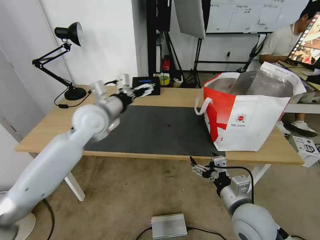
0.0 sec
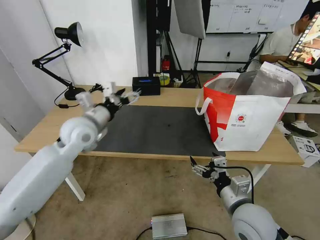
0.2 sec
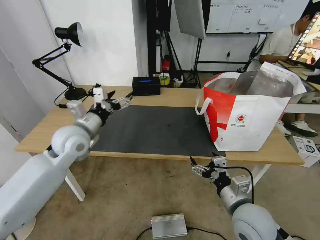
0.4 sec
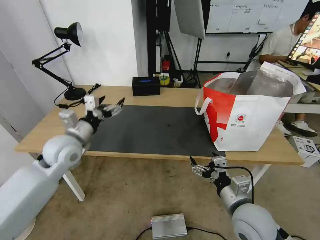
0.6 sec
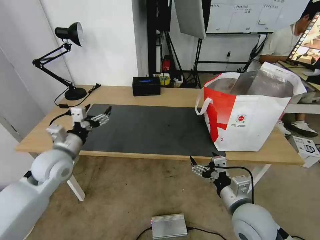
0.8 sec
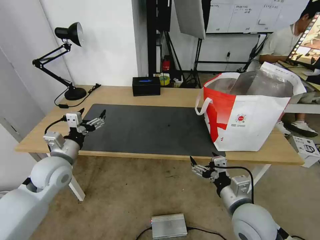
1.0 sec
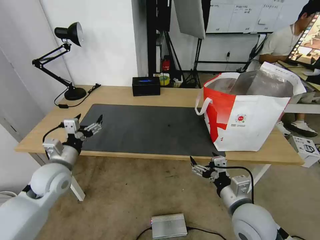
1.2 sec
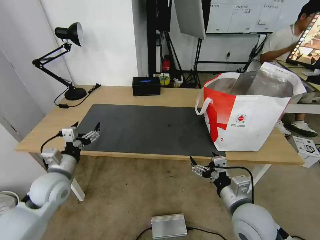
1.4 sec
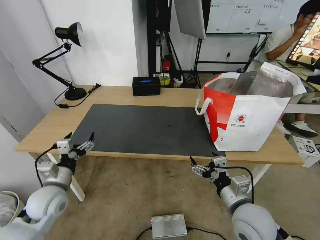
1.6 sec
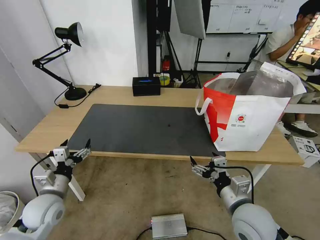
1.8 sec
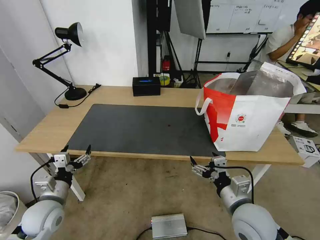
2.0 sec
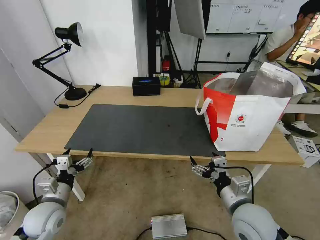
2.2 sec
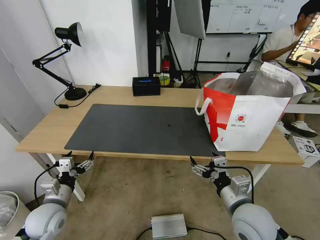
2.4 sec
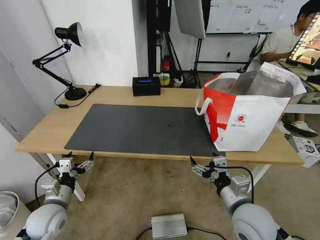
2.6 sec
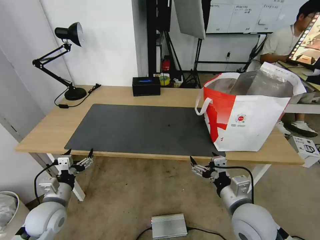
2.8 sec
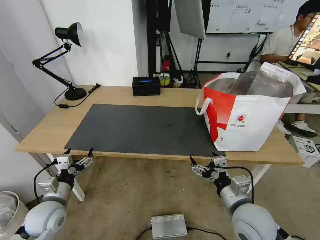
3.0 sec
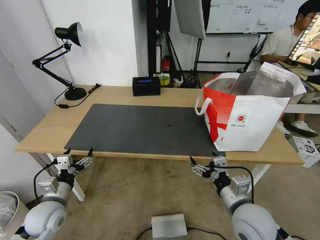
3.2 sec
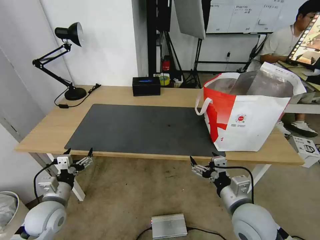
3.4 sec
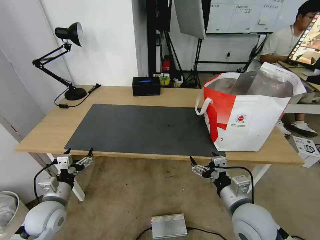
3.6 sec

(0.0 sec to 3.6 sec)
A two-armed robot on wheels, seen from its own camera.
Task of the whole recording: Pick up the trash from the table and place it into the takeout bag.
0.0 sec - 1.8 sec: The left gripper goes about 30 cm downward, backward and to the left.
1.8 sec - 3.6 sec: The grippers make only small movements.

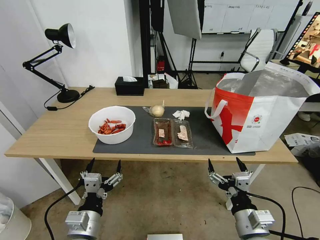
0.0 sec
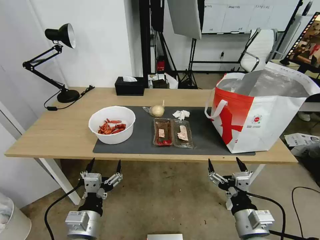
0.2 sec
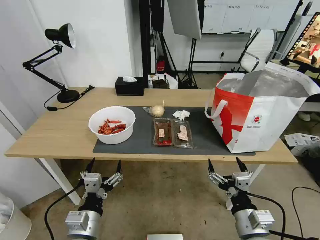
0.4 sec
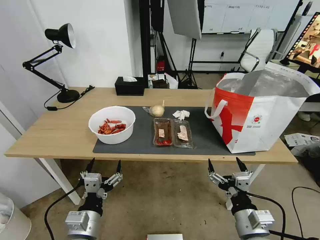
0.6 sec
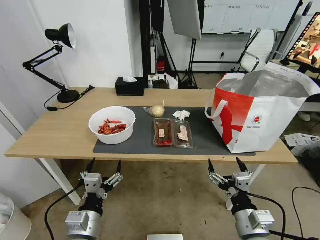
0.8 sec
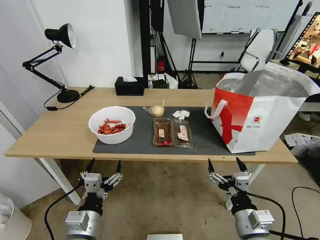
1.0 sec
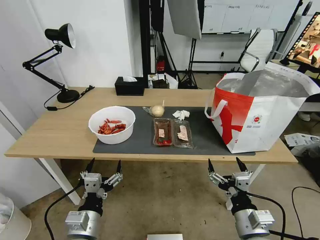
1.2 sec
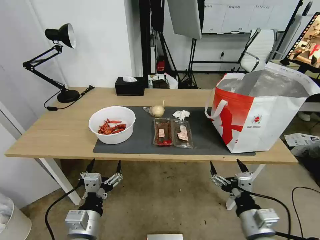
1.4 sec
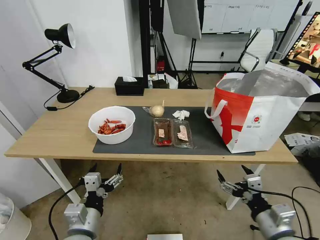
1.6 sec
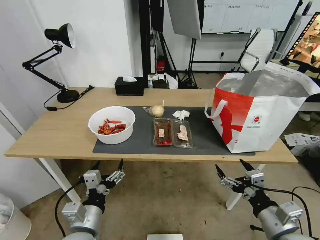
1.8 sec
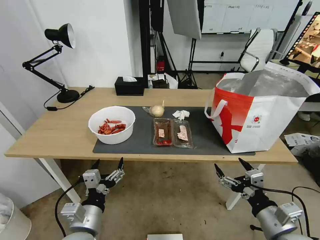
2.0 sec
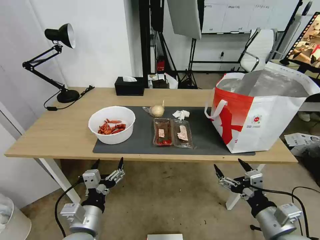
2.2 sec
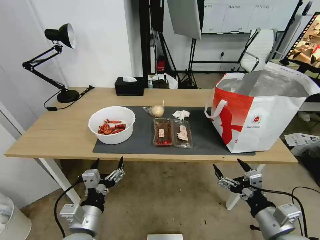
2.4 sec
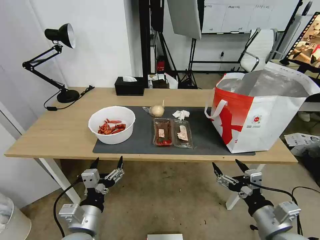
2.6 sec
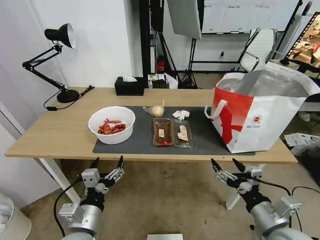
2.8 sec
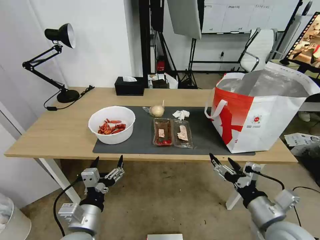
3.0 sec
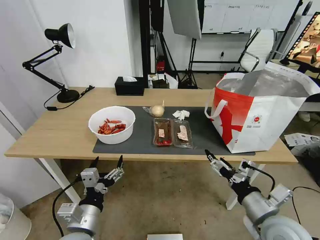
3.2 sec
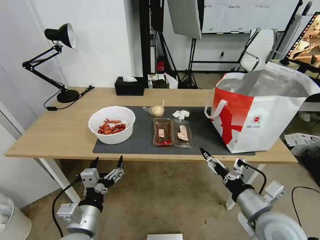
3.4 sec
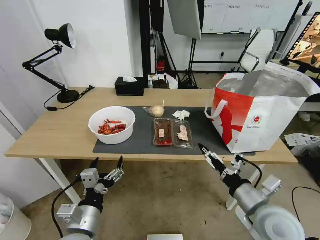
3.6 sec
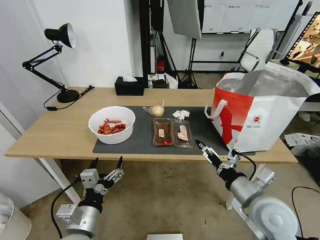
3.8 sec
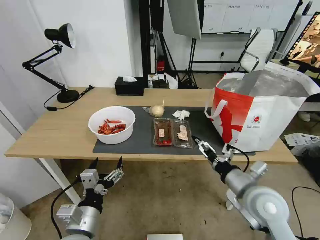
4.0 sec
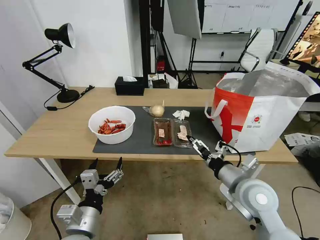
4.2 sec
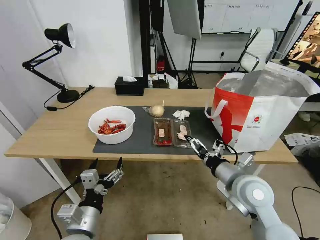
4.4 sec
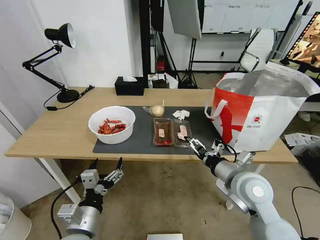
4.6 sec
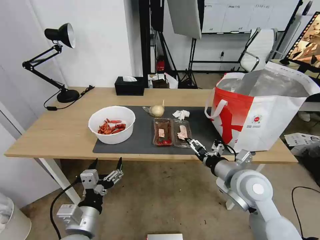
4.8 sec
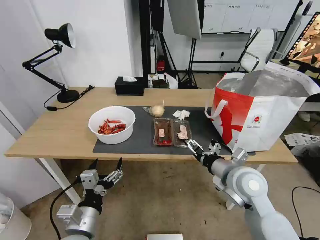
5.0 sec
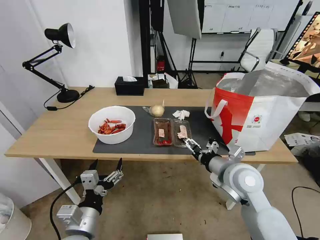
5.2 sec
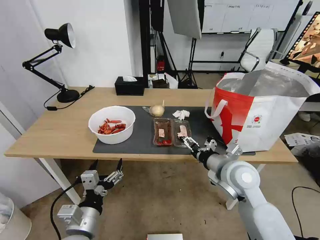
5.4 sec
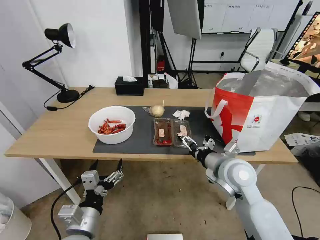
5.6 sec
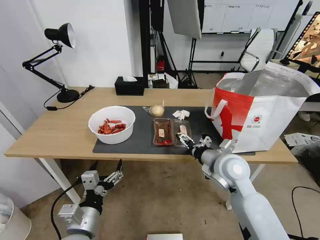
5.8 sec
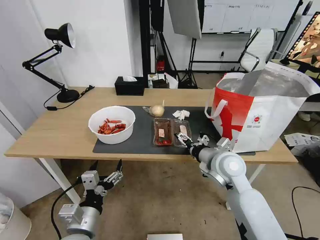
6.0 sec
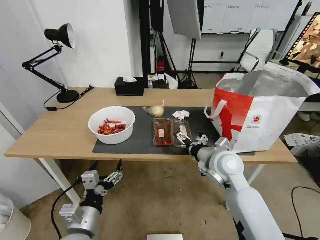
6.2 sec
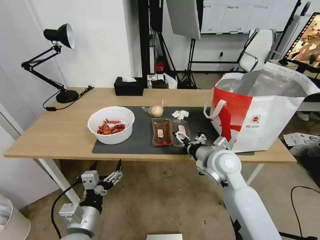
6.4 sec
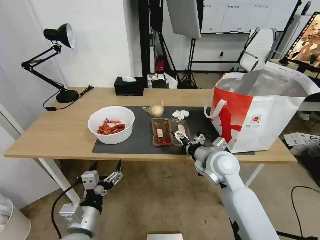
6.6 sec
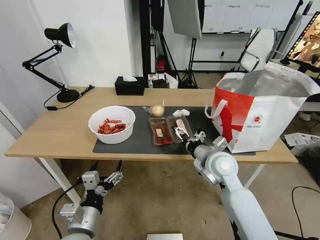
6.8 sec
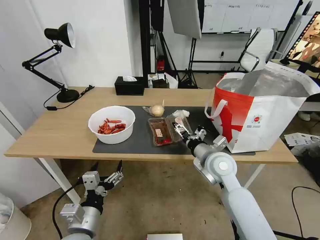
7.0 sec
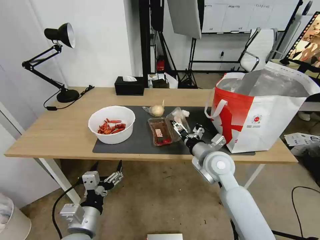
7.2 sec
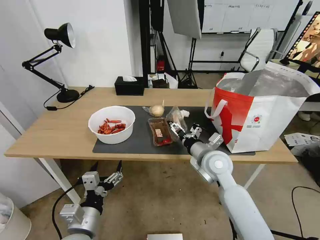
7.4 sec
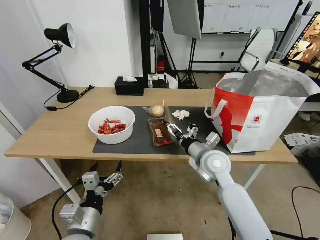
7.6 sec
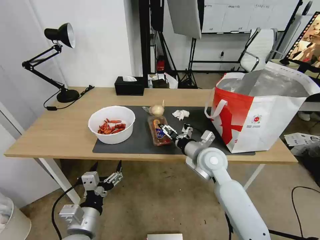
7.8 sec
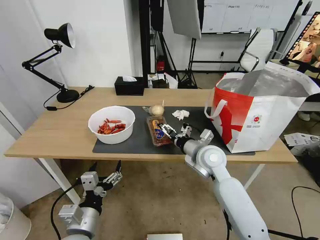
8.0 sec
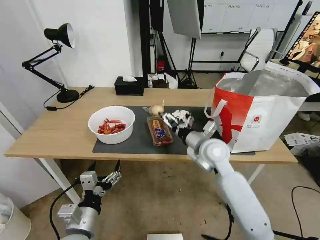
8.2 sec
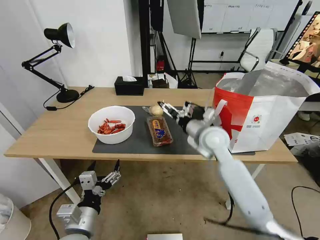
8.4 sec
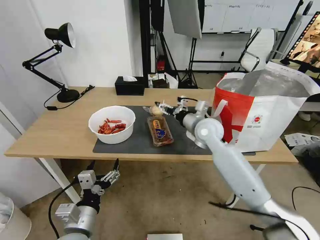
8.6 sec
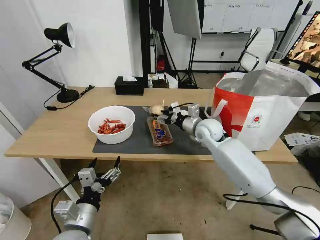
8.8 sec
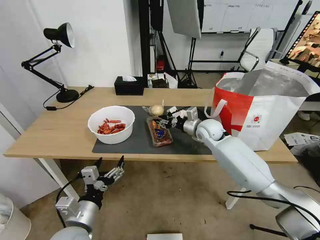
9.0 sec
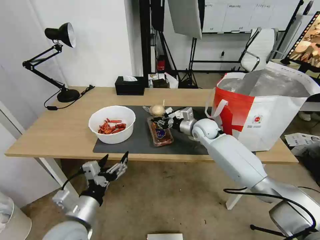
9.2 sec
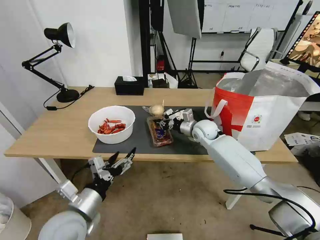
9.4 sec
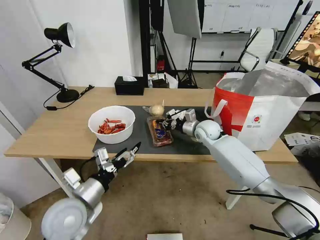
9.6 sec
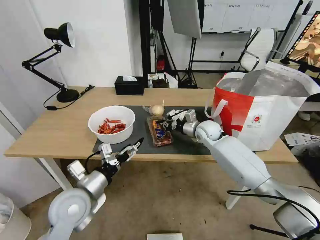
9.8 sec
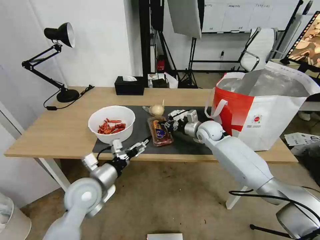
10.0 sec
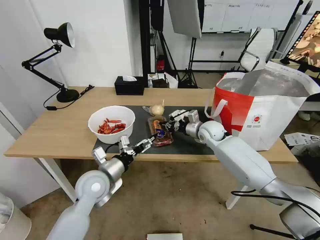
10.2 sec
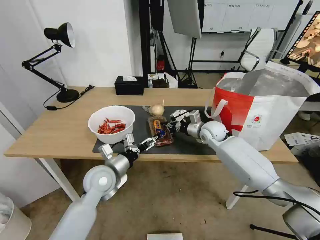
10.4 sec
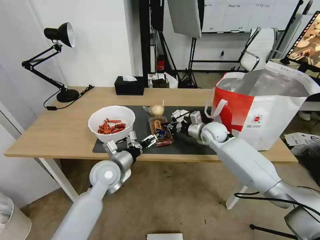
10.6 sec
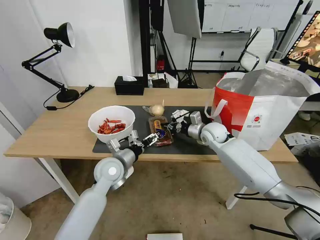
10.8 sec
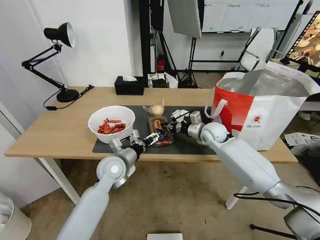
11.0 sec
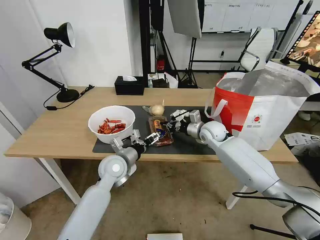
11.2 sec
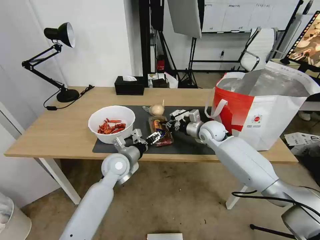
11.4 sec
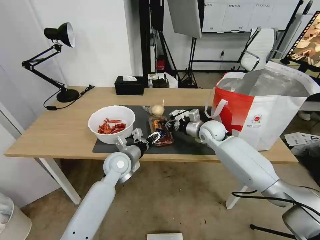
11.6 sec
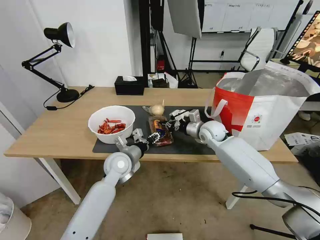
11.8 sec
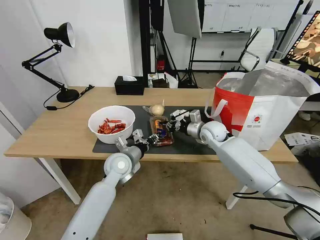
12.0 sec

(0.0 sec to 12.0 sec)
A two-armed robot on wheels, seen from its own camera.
Task of the whole recording: Pick up the trash from the table and place it into the takeout bag.
3.0 sec - 4.4 sec: The right gripper travels forward and to the left by roughly 15 cm.
4.4 sec - 6.0 sec: The right gripper moves forward, some 10 cm.
6.0 sec - 7.6 sec: The grippers stay close to where they were, moving slightly.
7.6 sec - 9.0 sec: The right gripper travels forward by some 15 cm, and closes.
9.0 sec - 10.4 sec: The left gripper goes some 15 cm forward.
10.4 sec - 12.0 sec: The left gripper is displaced forward by some 5 cm, and closes its fingers.

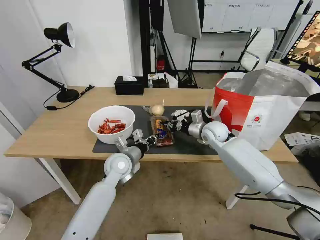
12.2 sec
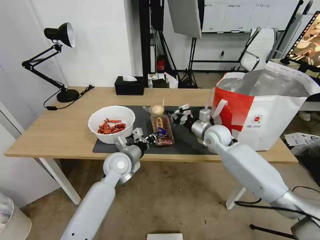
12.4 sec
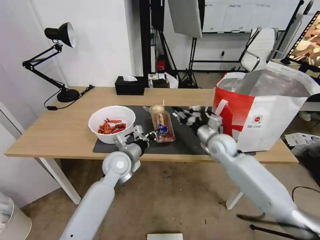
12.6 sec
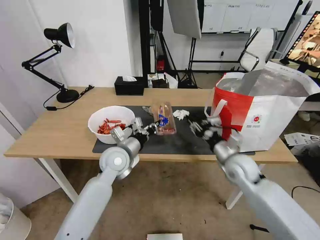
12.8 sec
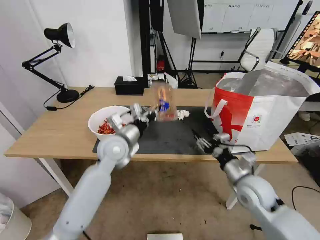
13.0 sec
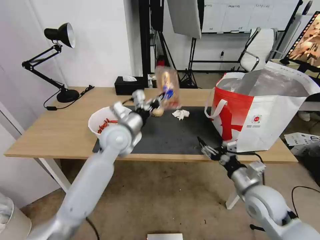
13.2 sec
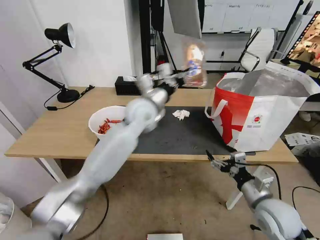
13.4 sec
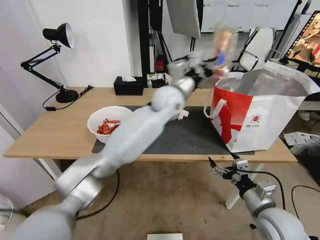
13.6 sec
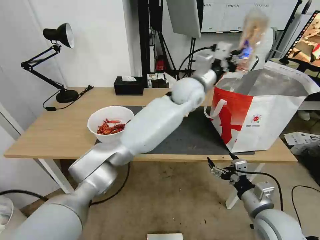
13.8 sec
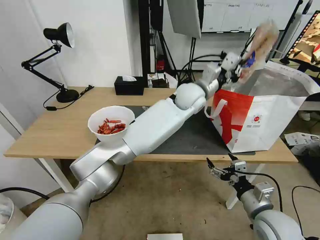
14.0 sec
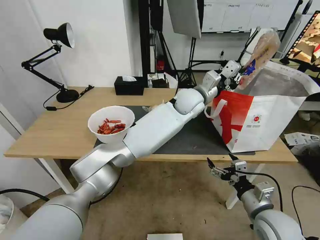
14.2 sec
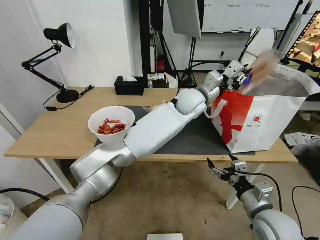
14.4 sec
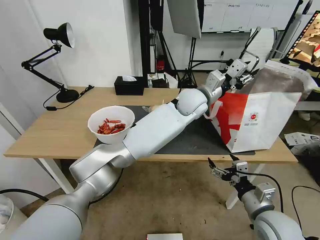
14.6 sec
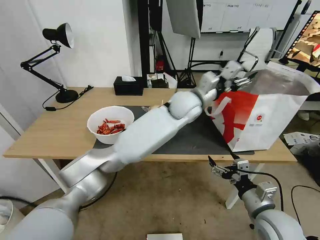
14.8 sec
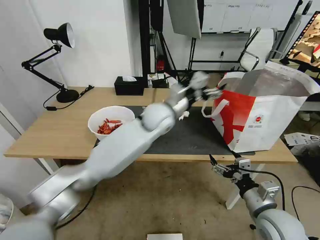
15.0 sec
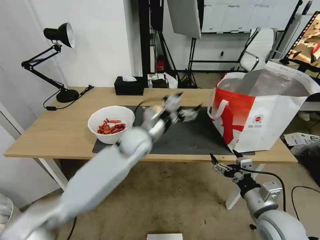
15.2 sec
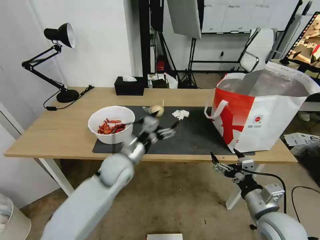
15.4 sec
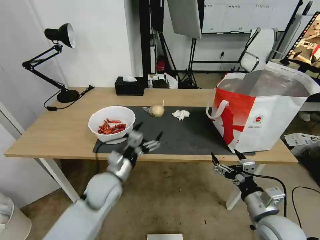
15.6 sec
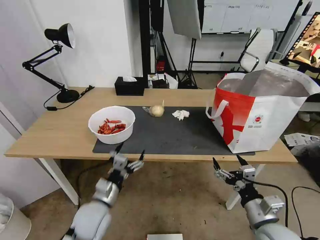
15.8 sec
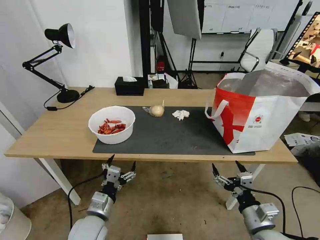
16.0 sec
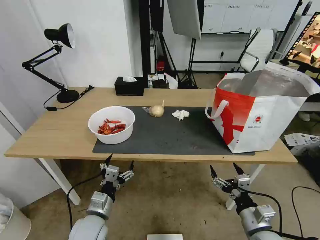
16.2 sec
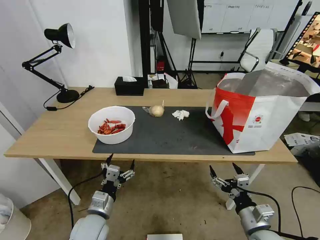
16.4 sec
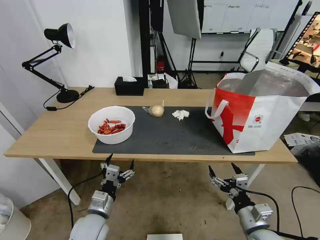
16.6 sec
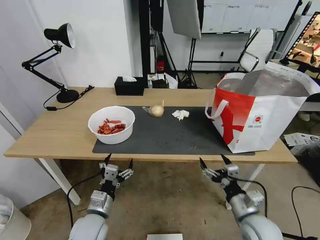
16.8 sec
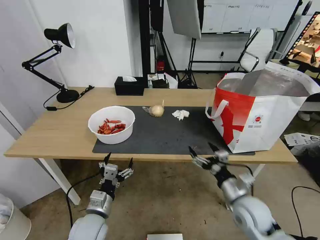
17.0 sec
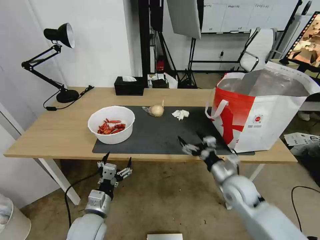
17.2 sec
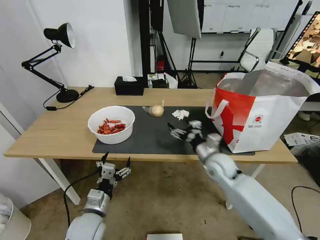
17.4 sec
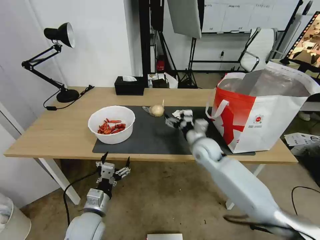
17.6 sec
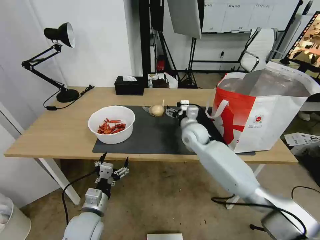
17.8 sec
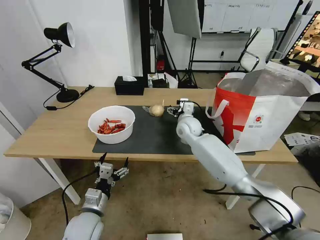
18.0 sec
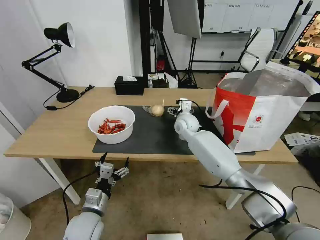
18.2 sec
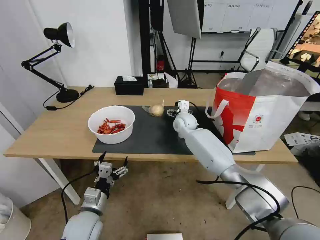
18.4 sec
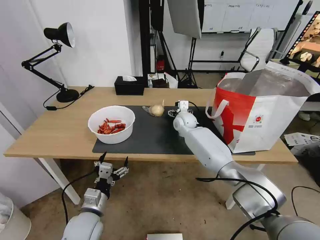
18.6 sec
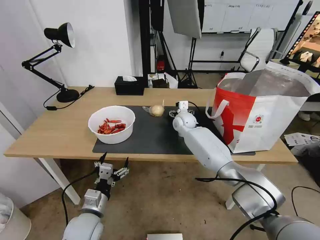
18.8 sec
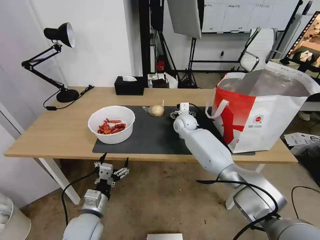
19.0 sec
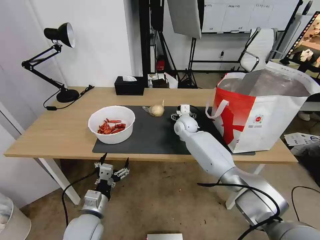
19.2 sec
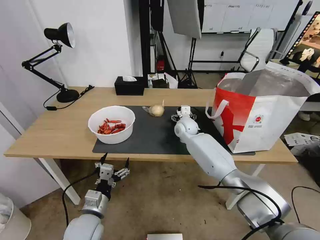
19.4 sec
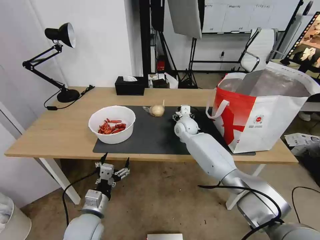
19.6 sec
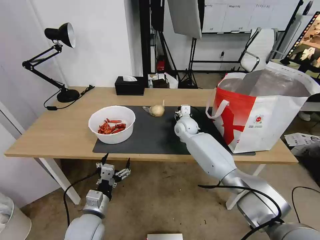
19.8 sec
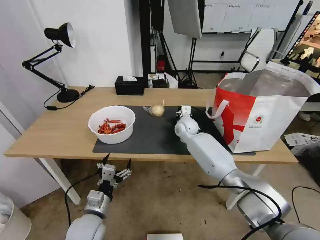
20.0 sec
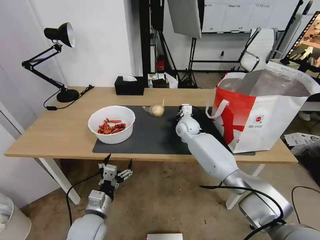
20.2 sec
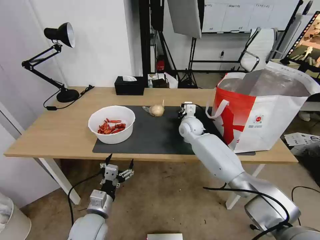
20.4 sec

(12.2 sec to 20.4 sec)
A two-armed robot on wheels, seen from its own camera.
Task of the whole recording: Pick up the trash from the table and place it into the takeout bag.
12.2 sec - 13.8 sec: The left gripper moves to the right, upward and forward, about 35 cm. Meanwhile the right gripper moves backward, about 30 cm, and opens its fingers.
13.8 sec - 15.4 sec: The left gripper travels to the left, downward and backward by roughly 35 cm, and opens its fingers.
15.4 sec - 17.2 sec: The left gripper shifts some 20 cm backward, downward and to the left. Meanwhile the right gripper is displaced forward and to the left by roughly 15 cm.
17.2 sec - 18.8 sec: The right gripper goes roughly 30 cm forward and to the left.
18.8 sec - 20.4 sec: The right gripper closes its fingers.
